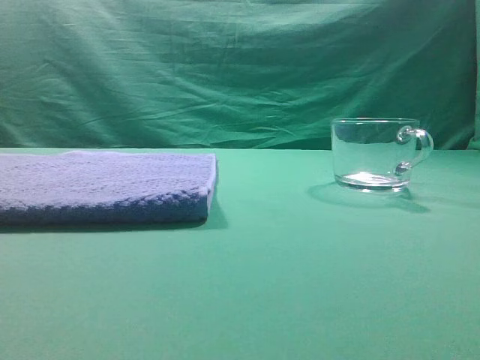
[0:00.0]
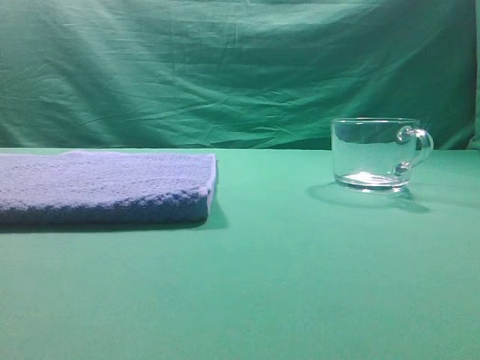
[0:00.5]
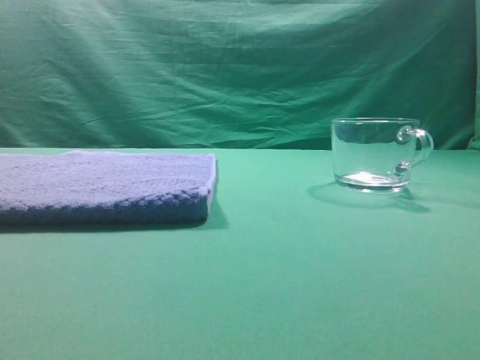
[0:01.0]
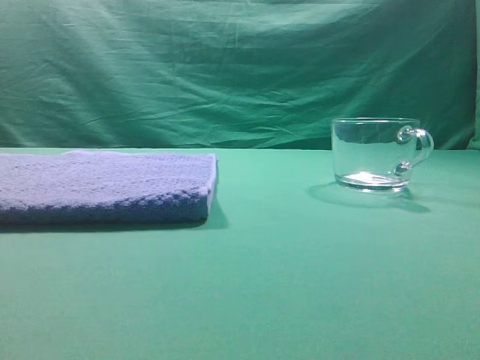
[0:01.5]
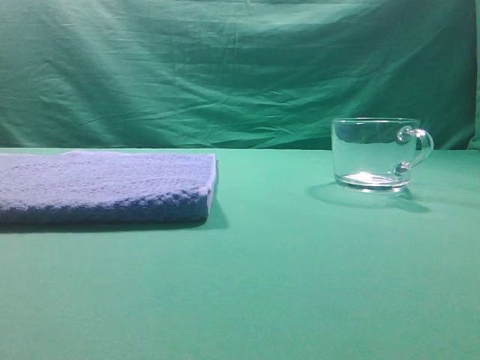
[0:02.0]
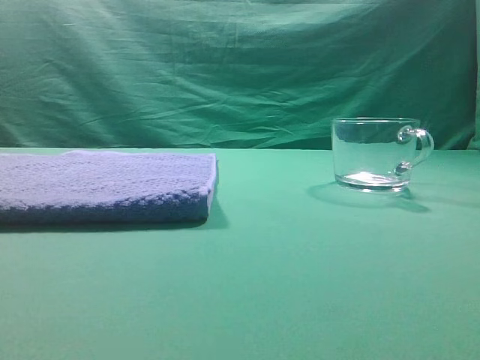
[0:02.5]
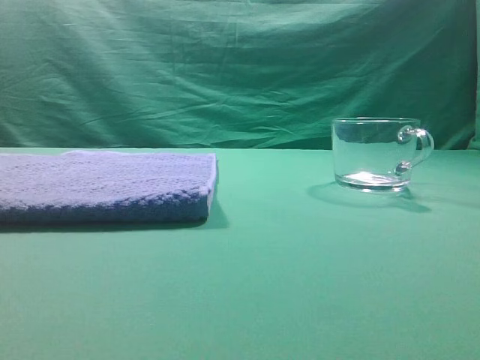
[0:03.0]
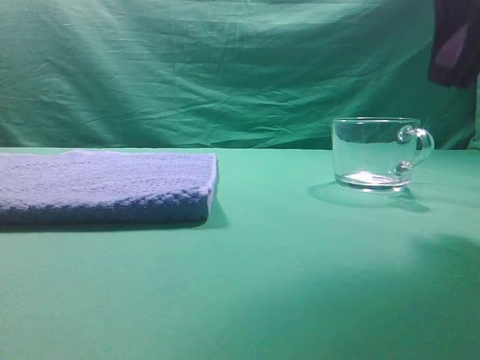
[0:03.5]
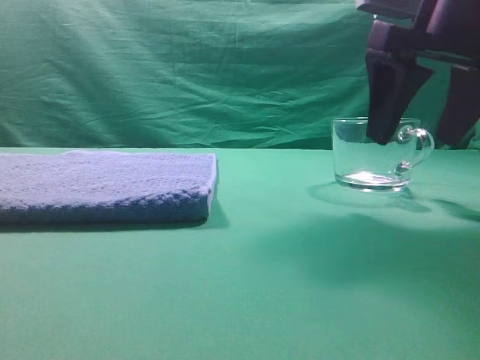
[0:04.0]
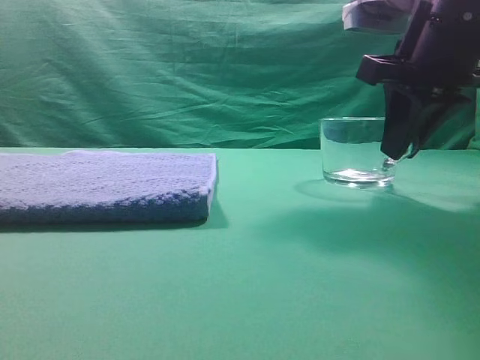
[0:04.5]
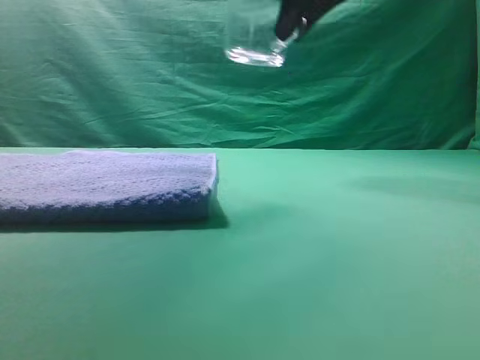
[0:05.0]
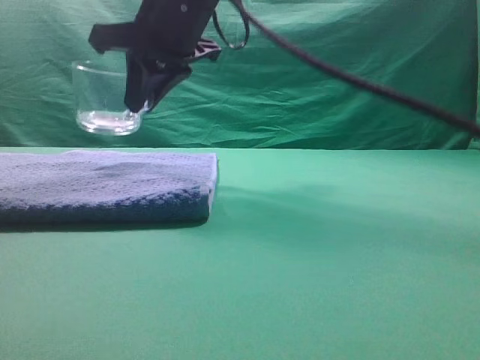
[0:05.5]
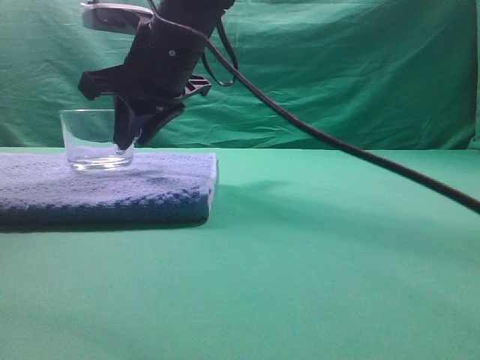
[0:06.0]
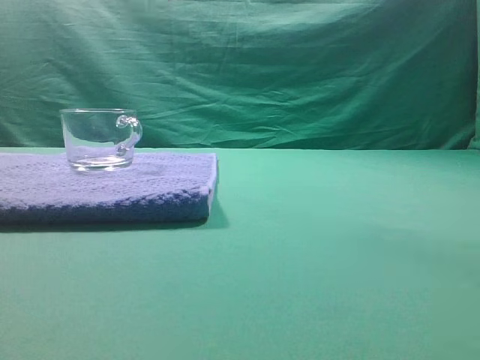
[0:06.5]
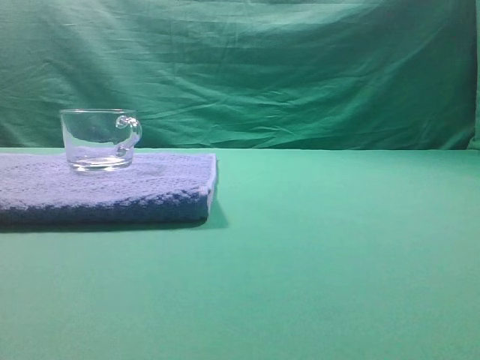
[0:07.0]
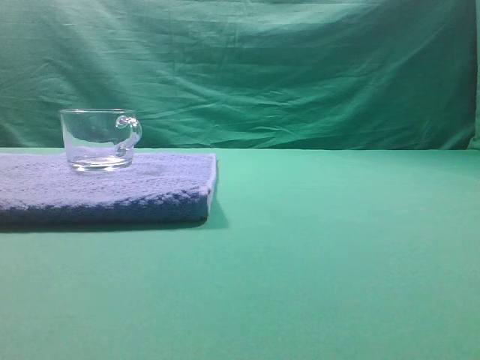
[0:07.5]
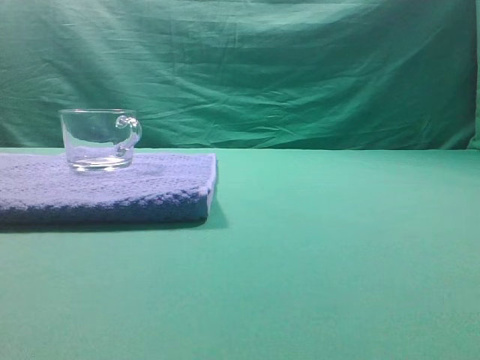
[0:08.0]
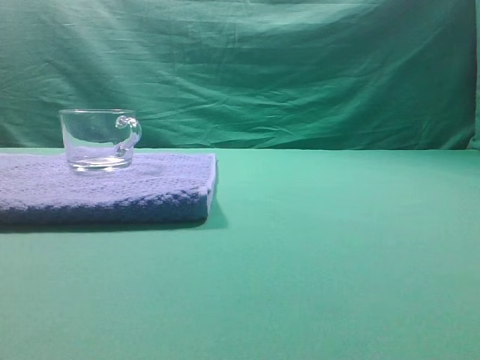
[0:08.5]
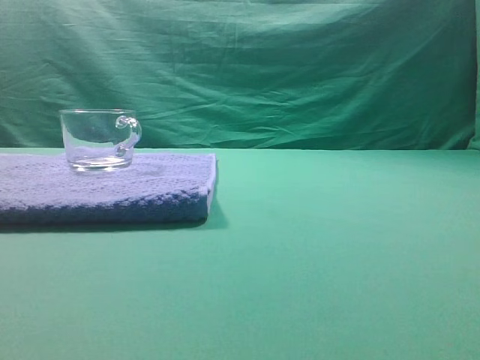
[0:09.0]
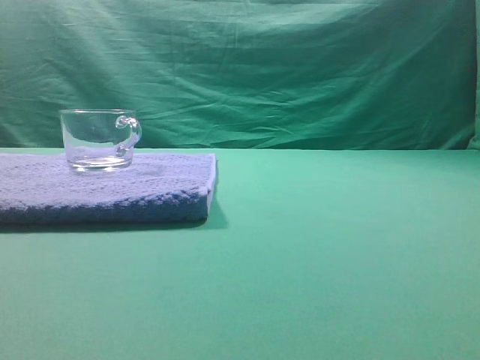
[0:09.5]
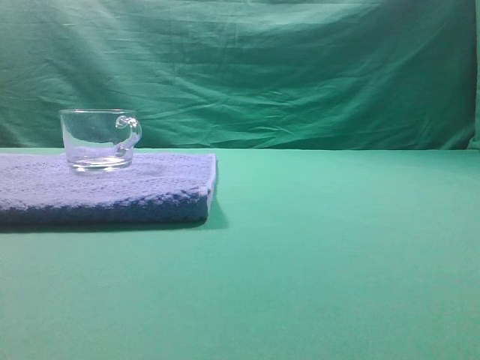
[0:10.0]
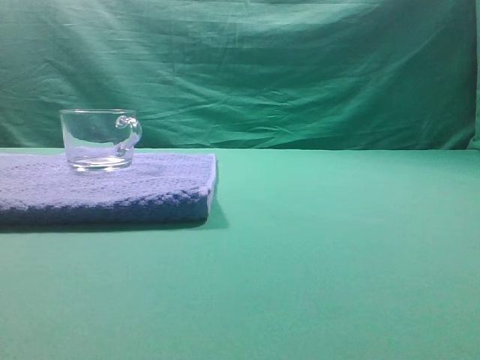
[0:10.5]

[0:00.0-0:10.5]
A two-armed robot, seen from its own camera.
Task of the whole recording: grasp the transparent glass cup and place it within the blue towel.
Step, 0:00.0 to 0:04.5: Grasp the transparent glass cup.
Step, 0:05.0 to 0:06.0: Place the glass cup on the blue zone.
